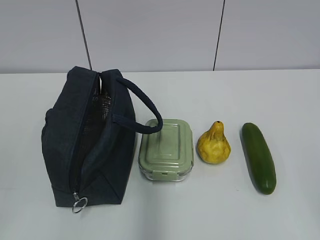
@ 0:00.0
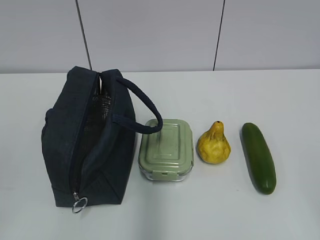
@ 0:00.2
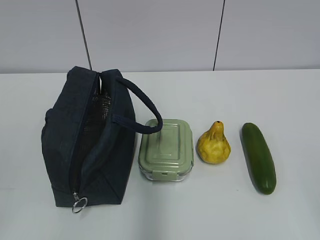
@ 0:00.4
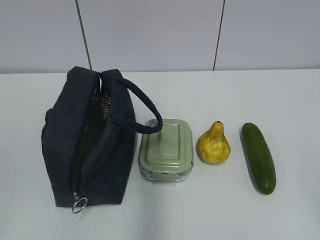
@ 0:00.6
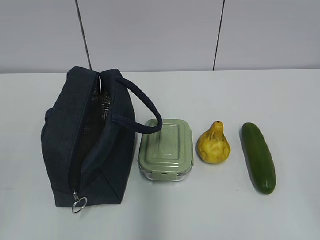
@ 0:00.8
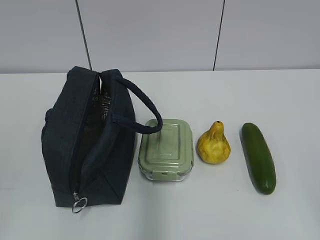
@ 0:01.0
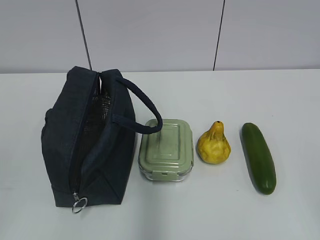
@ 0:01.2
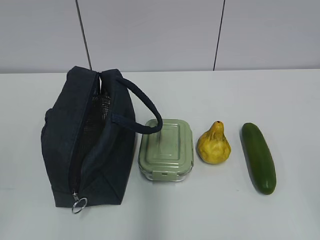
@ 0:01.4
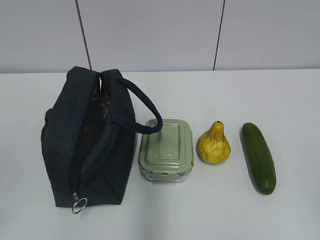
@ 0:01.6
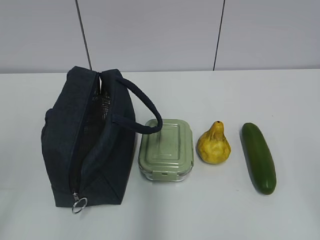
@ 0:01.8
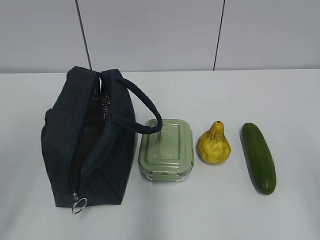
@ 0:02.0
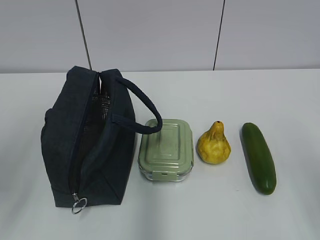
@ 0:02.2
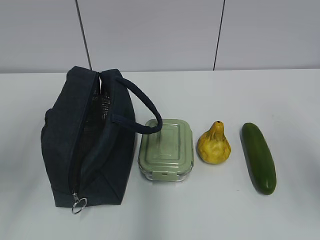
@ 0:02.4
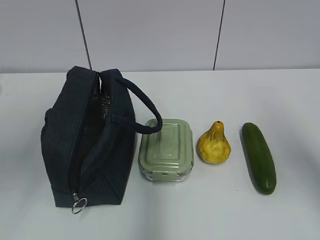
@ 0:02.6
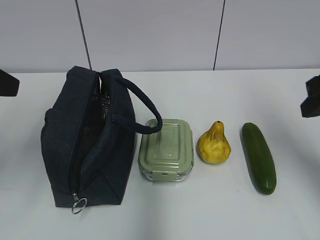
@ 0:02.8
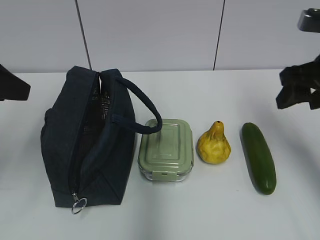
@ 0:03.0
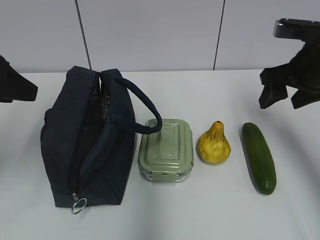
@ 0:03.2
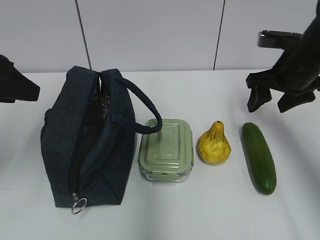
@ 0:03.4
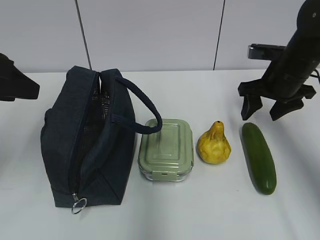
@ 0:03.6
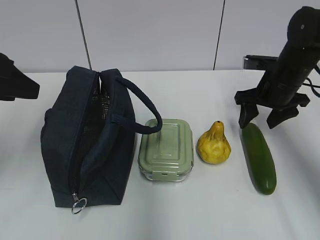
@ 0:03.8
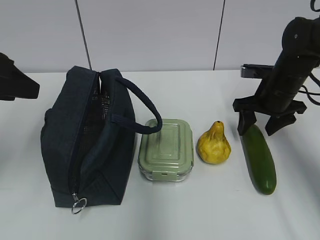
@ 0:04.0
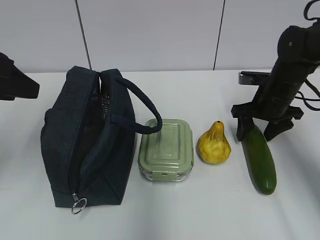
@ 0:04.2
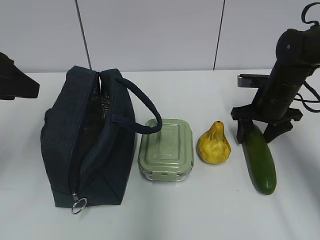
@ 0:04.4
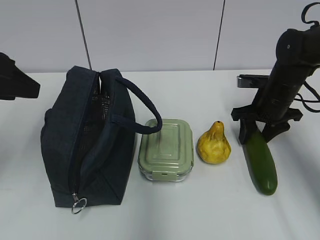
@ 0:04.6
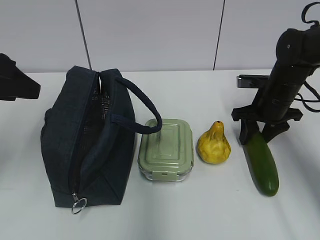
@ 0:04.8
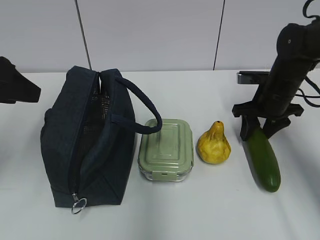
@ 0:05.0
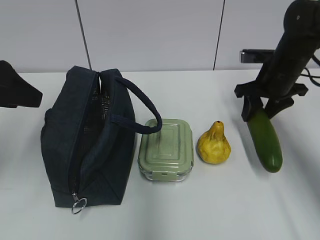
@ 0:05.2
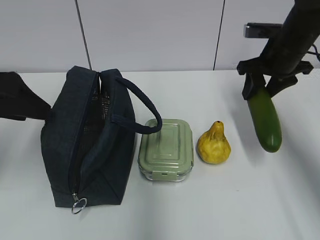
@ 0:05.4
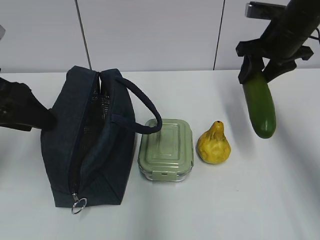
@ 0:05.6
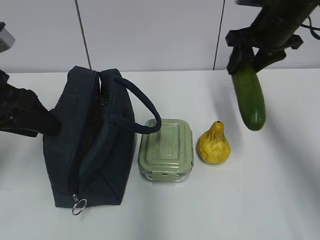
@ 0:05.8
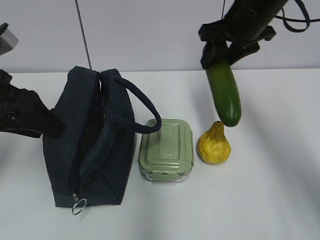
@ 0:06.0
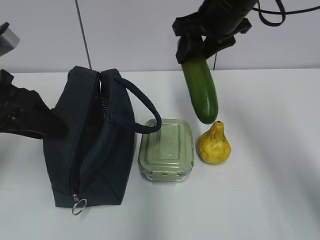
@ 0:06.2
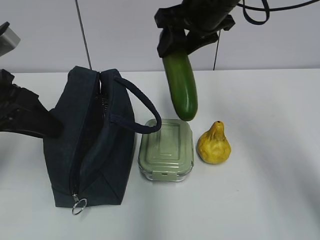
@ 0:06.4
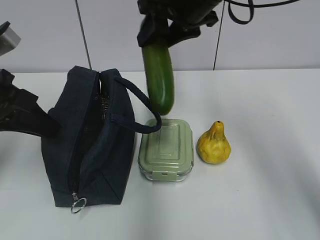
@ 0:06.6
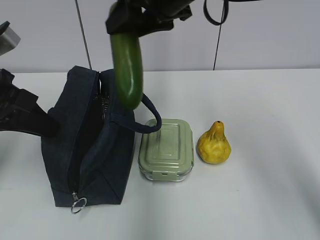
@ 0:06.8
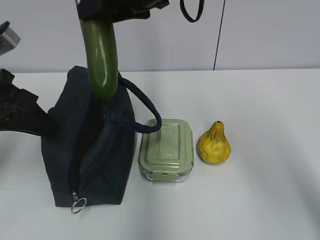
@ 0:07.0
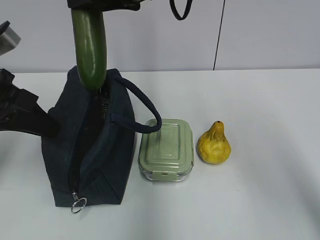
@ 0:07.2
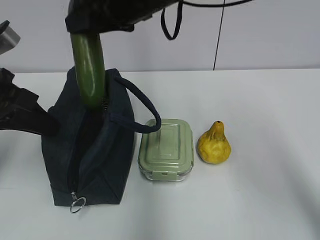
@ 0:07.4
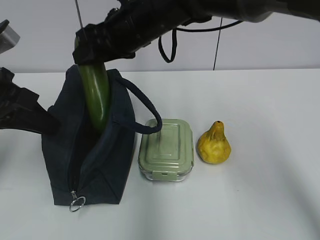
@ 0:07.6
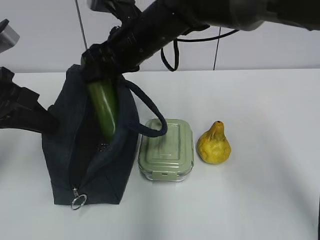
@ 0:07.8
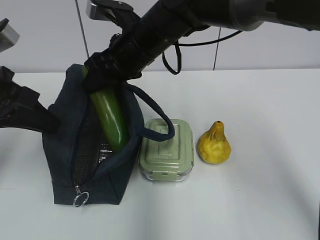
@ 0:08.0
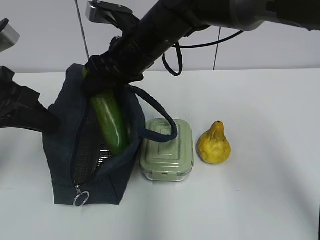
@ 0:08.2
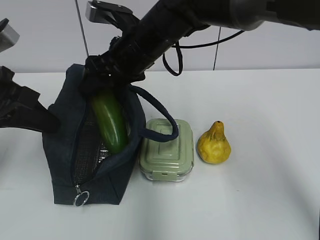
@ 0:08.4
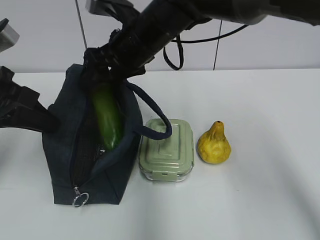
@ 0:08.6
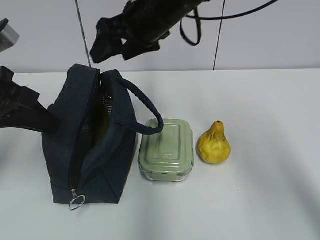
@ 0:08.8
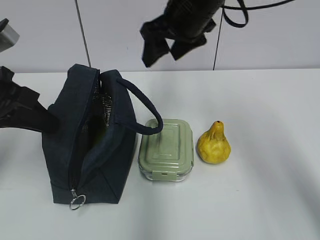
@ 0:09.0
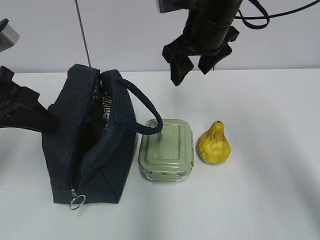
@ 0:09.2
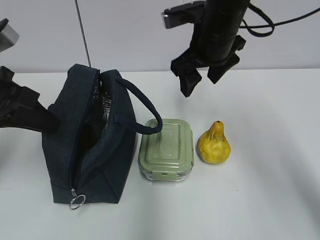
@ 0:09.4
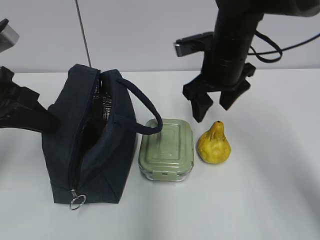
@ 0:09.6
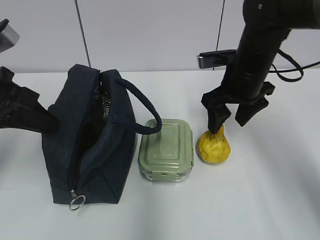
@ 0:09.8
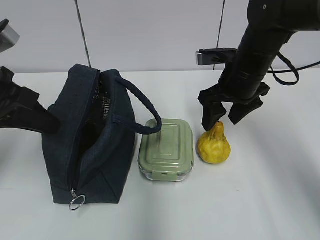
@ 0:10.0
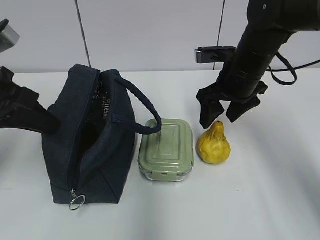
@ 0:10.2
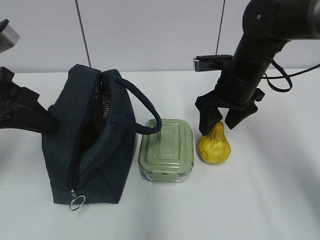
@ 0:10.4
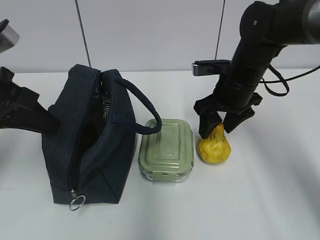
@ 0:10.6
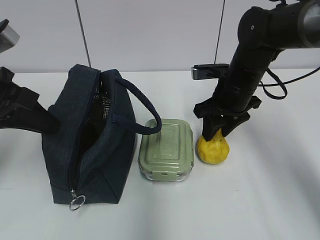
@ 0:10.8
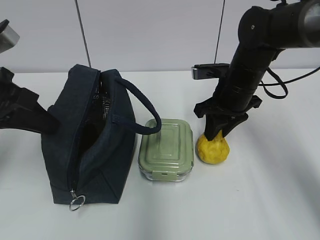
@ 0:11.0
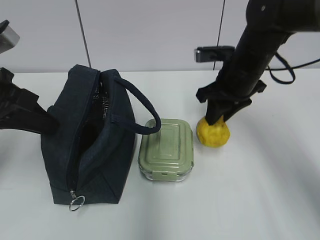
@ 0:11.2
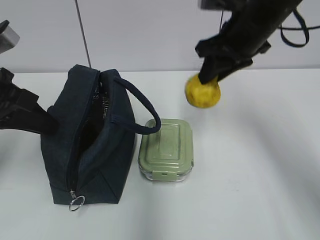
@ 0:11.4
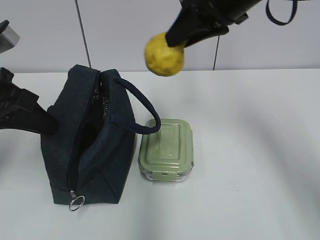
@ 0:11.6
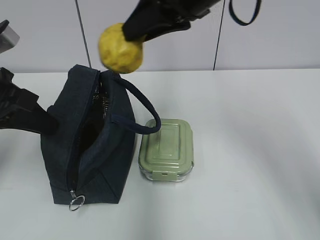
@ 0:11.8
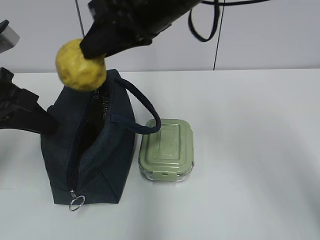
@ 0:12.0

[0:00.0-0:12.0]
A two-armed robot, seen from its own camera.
0:01.6 to 0:03.0: The two grippers go approximately 25 cm forward.
0:03.0 to 0:04.4: The right gripper heads downward and forward, covering approximately 15 cm.
0:04.4 to 0:06.0: The right gripper travels upward and to the left by about 20 cm, while the left gripper ends up some 5 cm from where it was.
0:06.0 to 0:07.6: The right gripper heads to the left, covering approximately 15 cm; the left gripper closes up.
0:07.6 to 0:09.0: The right gripper heads to the right, covering approximately 10 cm.
0:09.0 to 0:10.4: The right gripper heads downward and to the right, covering roughly 15 cm.
0:10.4 to 0:12.0: The right gripper heads upward, to the left and backward, covering some 20 cm, and closes.

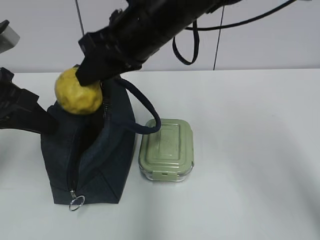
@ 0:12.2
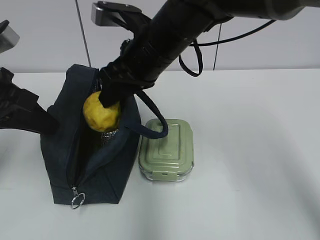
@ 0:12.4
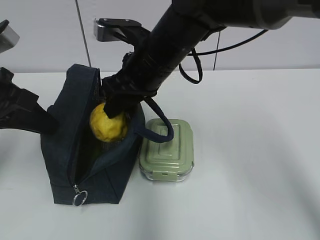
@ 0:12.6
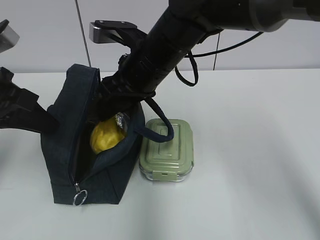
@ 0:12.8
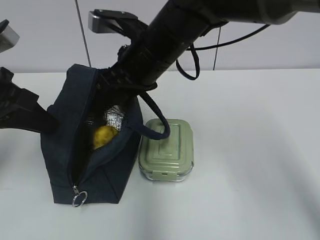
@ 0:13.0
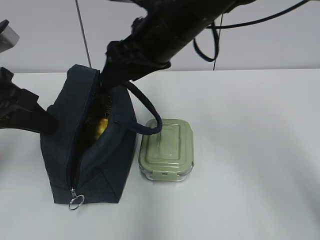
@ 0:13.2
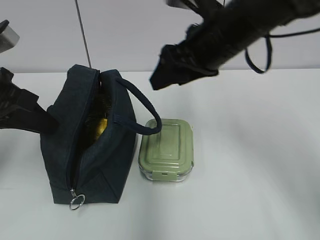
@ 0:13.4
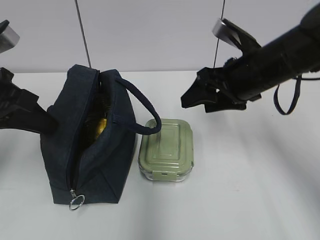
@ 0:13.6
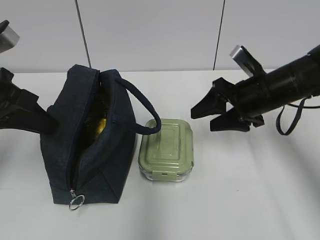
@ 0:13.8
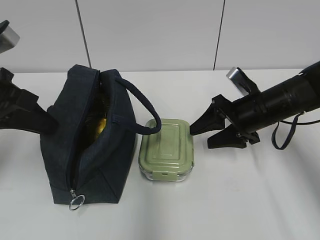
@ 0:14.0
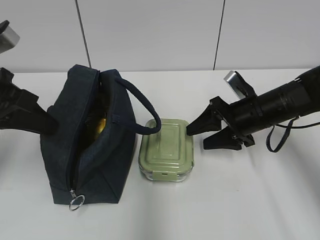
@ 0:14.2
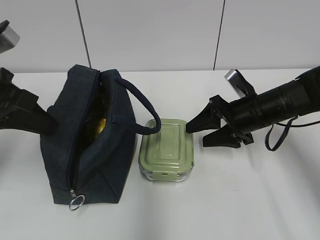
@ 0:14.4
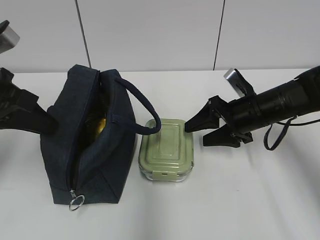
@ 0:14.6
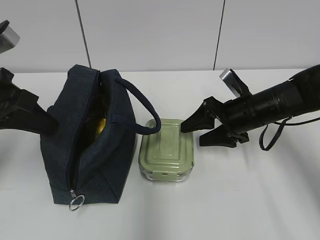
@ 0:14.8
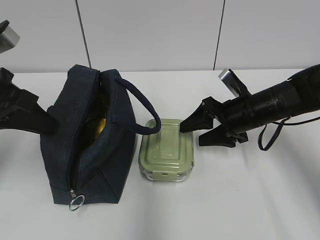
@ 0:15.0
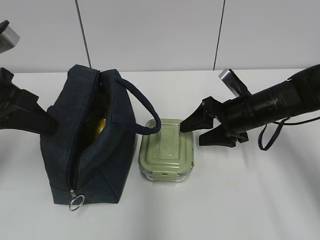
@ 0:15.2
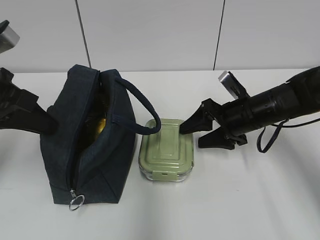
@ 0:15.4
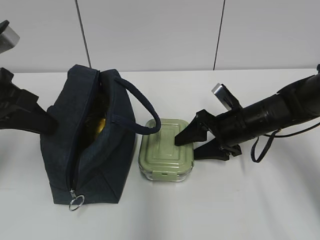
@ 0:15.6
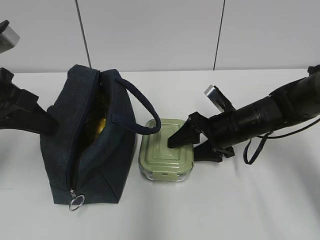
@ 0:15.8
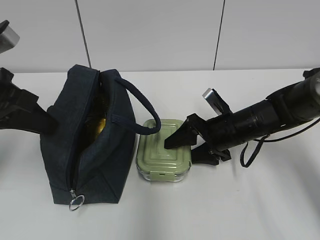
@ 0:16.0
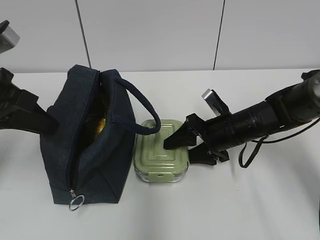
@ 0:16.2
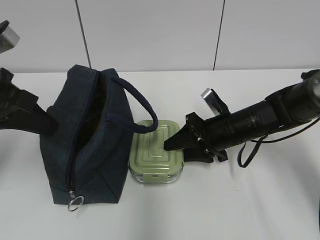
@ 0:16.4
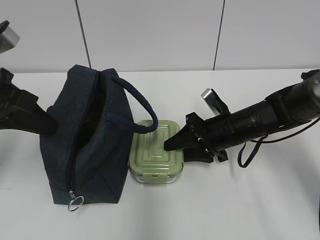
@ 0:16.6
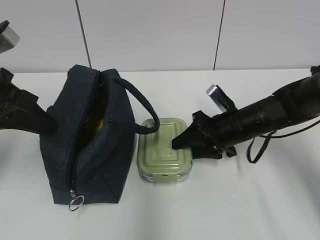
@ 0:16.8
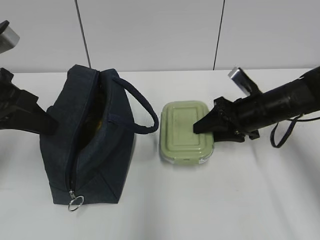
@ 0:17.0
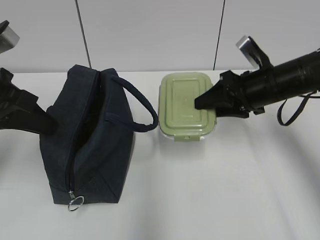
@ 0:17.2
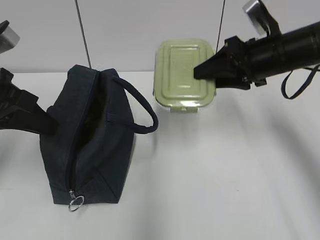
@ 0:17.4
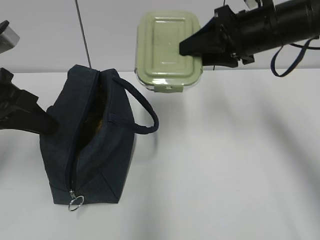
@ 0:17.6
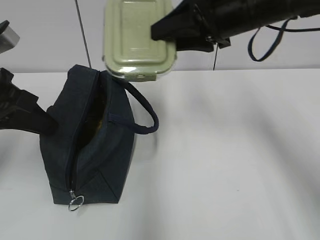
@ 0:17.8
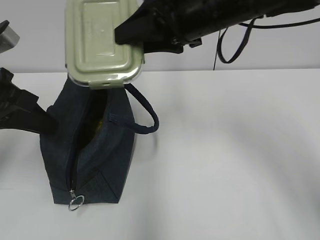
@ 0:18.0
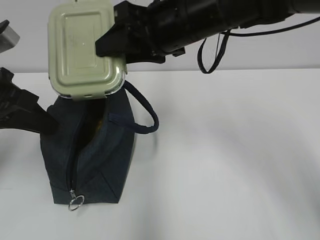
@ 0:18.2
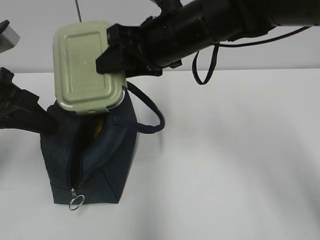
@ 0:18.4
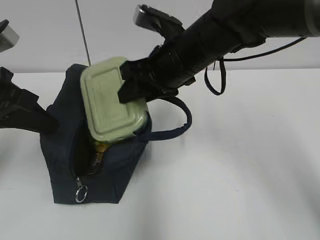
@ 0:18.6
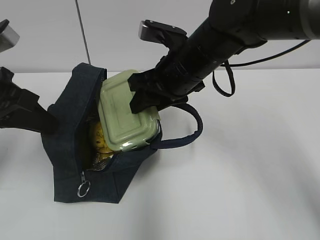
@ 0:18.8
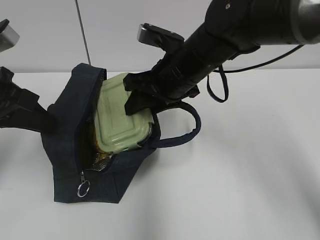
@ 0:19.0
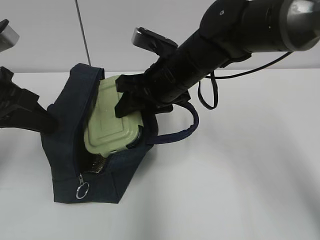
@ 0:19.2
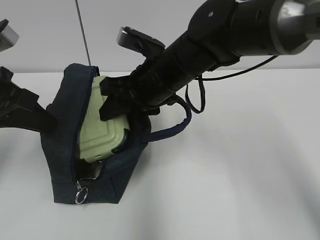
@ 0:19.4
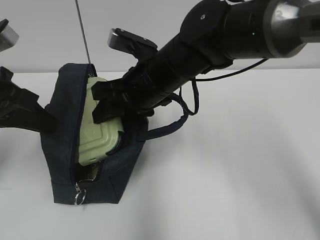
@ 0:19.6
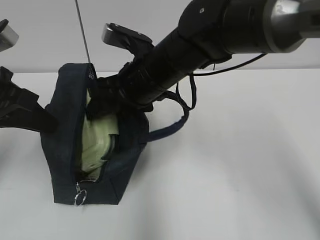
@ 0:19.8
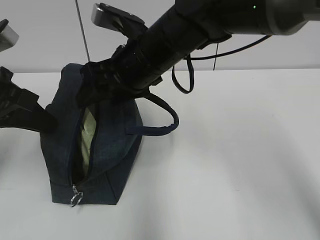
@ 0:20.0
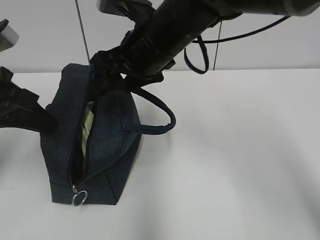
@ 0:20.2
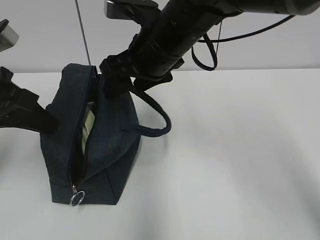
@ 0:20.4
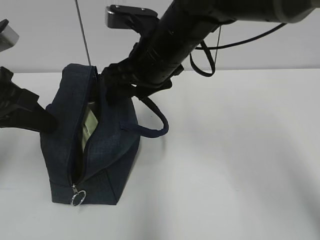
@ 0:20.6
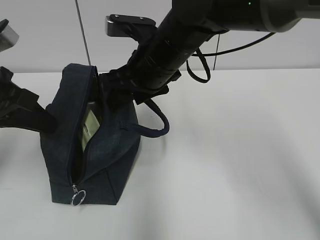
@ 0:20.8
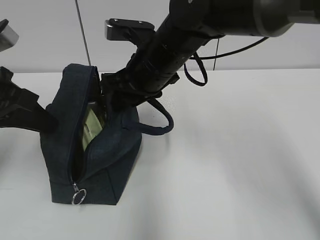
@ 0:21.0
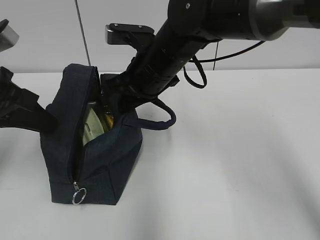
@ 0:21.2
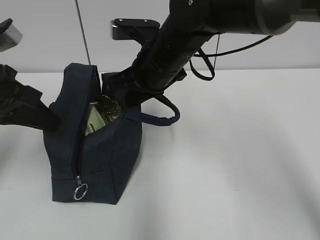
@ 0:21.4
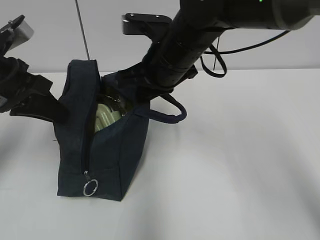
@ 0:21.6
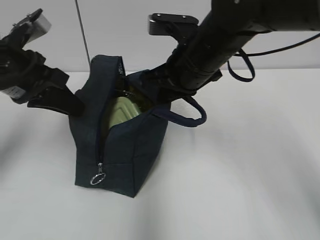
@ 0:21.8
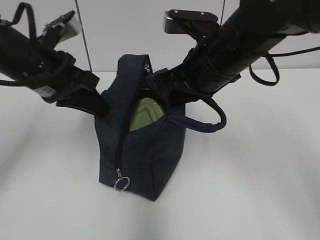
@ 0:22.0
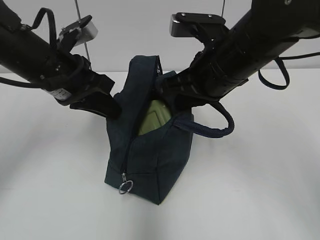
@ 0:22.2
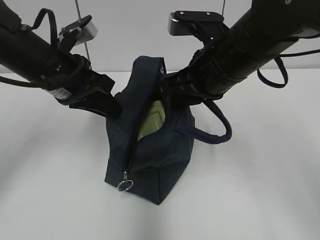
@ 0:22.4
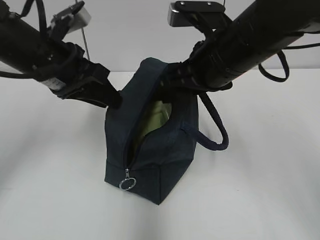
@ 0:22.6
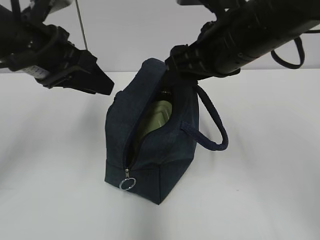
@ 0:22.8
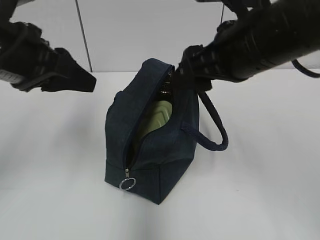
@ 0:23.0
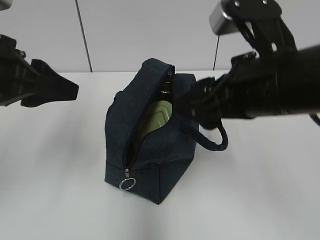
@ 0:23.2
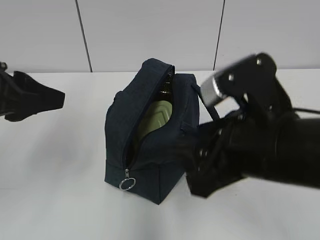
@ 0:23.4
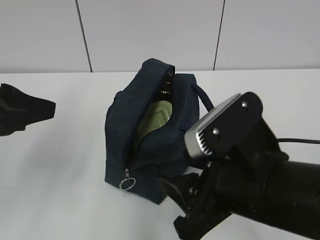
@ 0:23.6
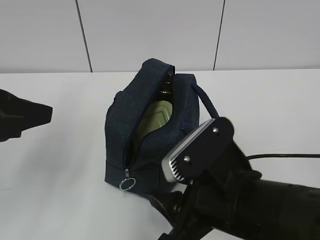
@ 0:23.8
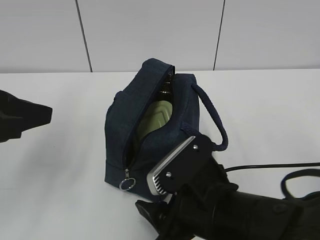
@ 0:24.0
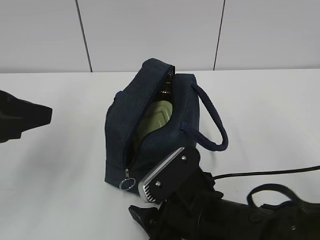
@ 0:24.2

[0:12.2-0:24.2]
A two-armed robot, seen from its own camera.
0:12.2 to 0:13.8: The right gripper moves to the right and downward, roughly 25 cm, and opens up.
0:13.8 to 0:15.2: The grippers make only small movements.
0:15.2 to 0:16.6: The right gripper closes up.
0:16.6 to 0:18.2: The right gripper moves upward and to the left, approximately 25 cm.
0:18.2 to 0:19.8: The right gripper moves downward, approximately 5 cm.
0:19.8 to 0:21.2: The right gripper closes its fingers.
0:21.2 to 0:22.6: The left gripper travels to the right by some 10 cm, and opens; the right gripper shifts approximately 10 cm to the right and backward, and opens its fingers.
0:22.6 to 0:24.2: The right gripper is displaced downward and backward by some 20 cm; the left gripper travels backward and to the left by roughly 15 cm.
